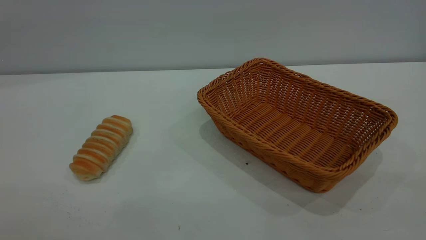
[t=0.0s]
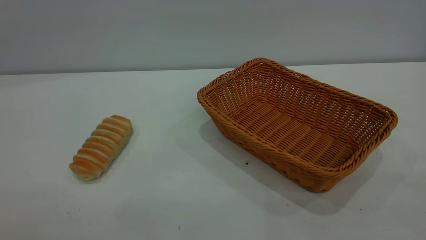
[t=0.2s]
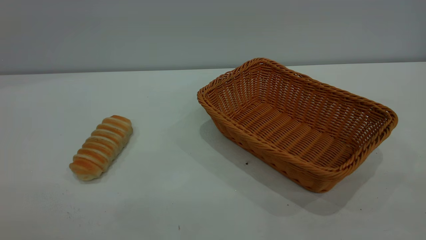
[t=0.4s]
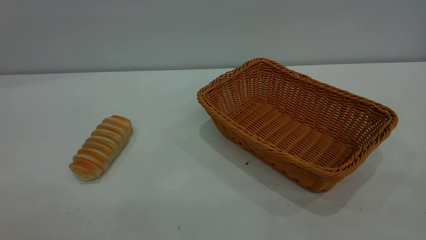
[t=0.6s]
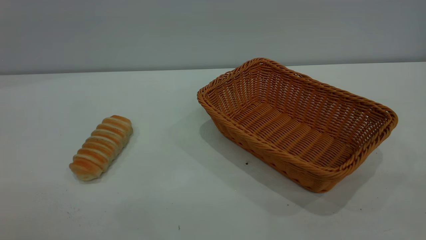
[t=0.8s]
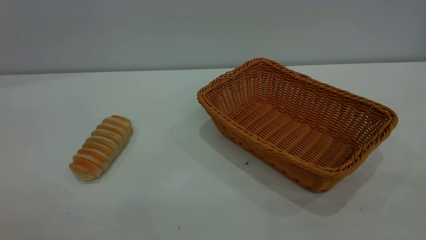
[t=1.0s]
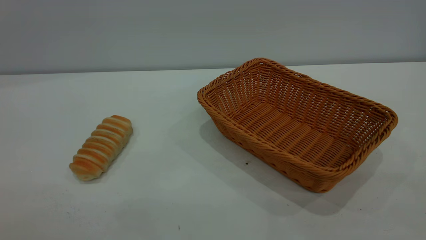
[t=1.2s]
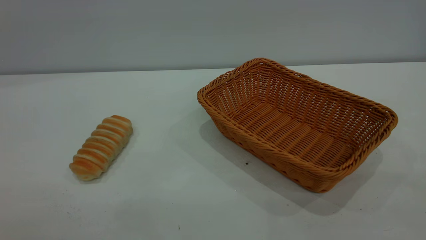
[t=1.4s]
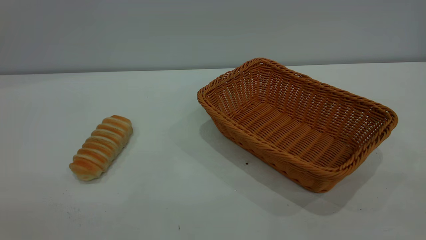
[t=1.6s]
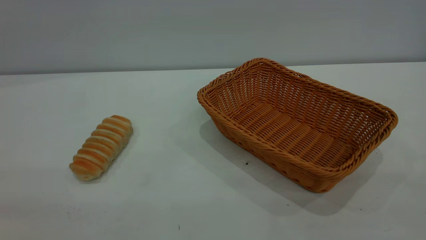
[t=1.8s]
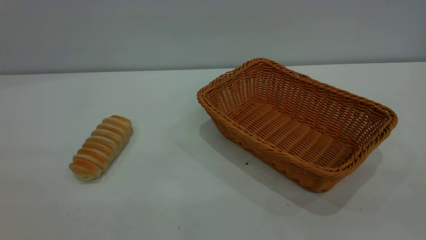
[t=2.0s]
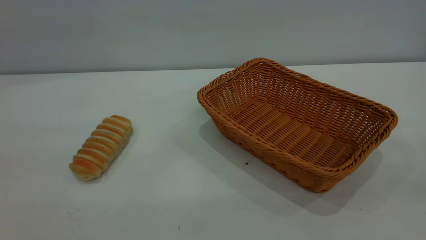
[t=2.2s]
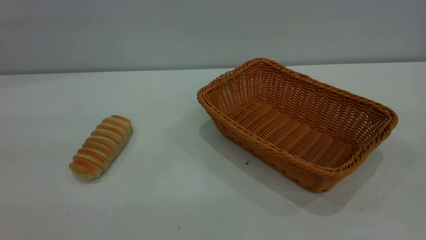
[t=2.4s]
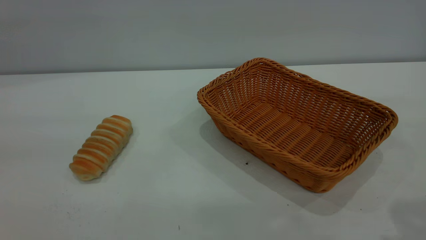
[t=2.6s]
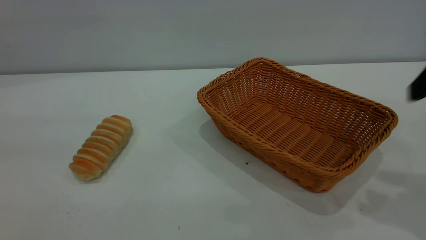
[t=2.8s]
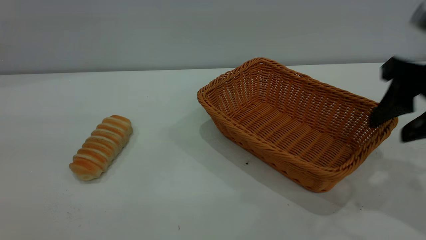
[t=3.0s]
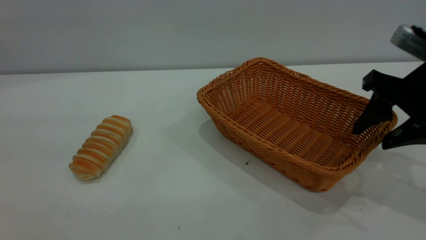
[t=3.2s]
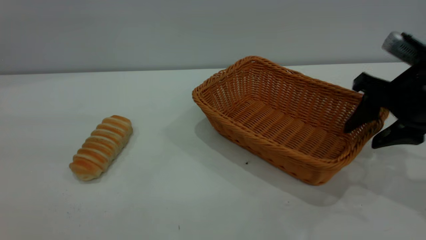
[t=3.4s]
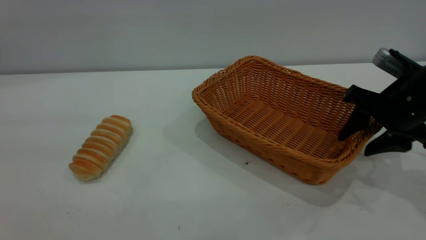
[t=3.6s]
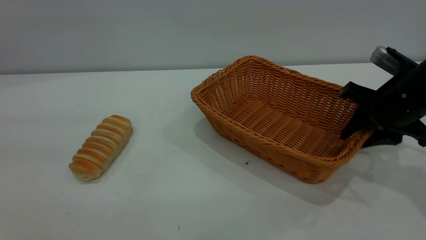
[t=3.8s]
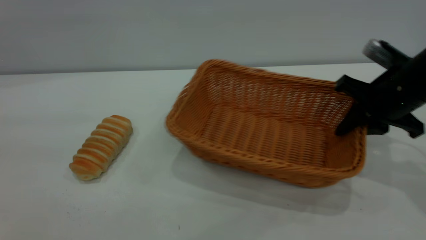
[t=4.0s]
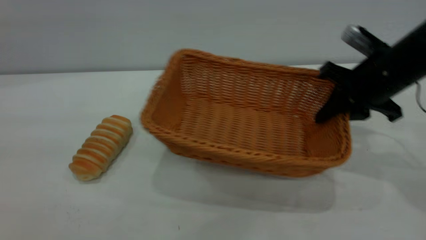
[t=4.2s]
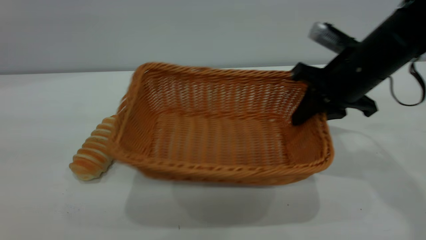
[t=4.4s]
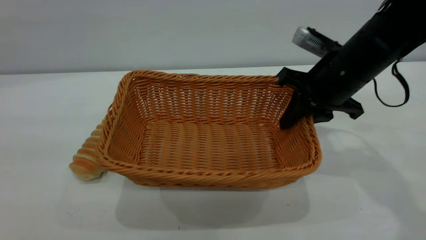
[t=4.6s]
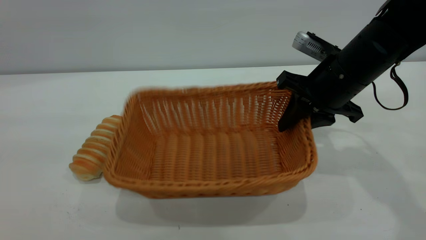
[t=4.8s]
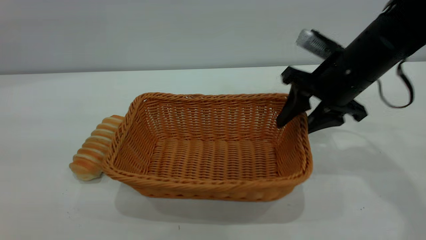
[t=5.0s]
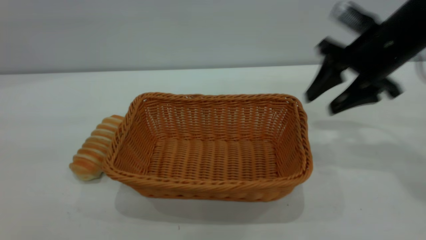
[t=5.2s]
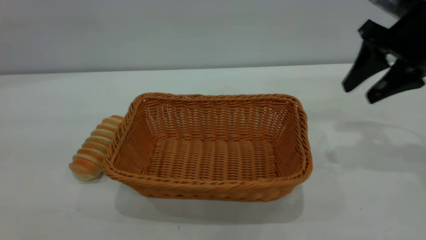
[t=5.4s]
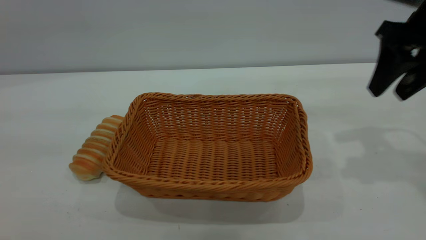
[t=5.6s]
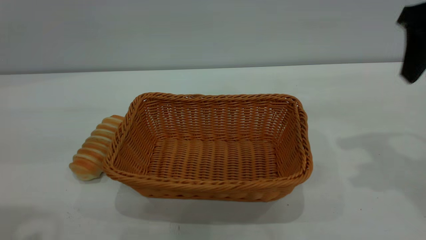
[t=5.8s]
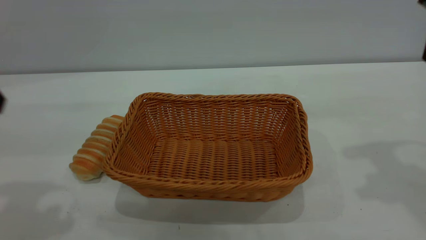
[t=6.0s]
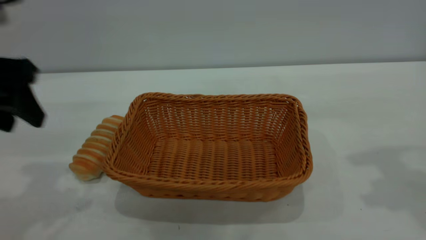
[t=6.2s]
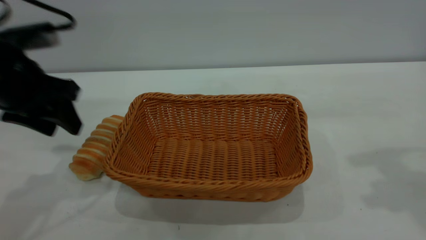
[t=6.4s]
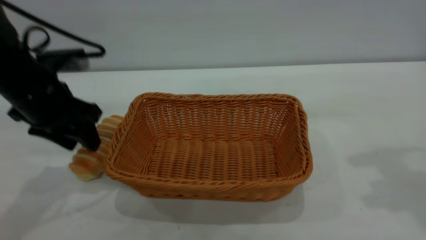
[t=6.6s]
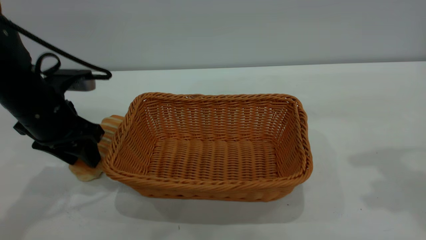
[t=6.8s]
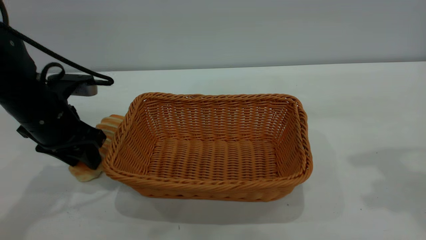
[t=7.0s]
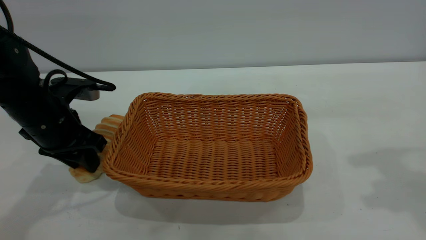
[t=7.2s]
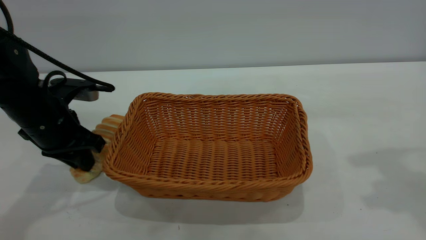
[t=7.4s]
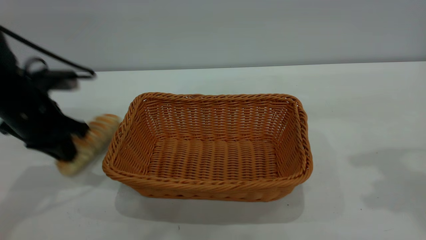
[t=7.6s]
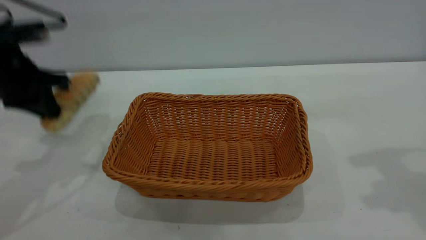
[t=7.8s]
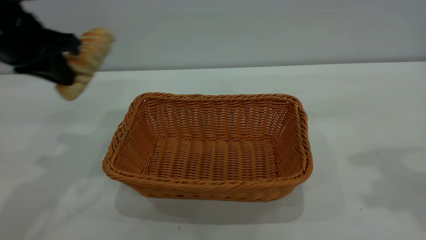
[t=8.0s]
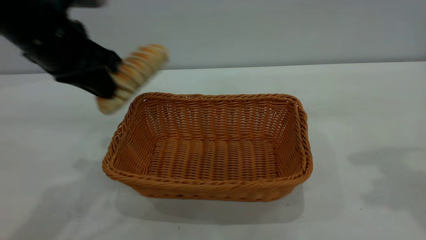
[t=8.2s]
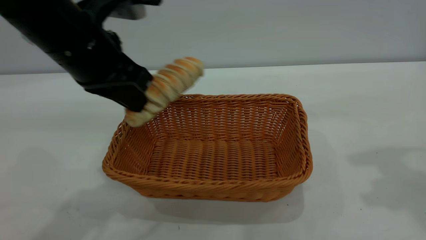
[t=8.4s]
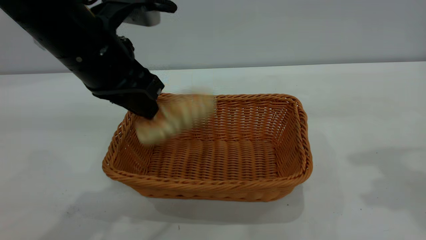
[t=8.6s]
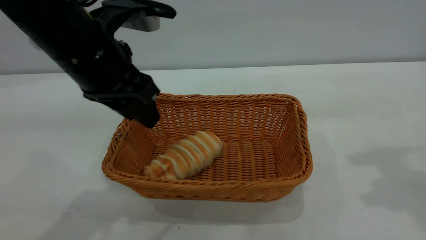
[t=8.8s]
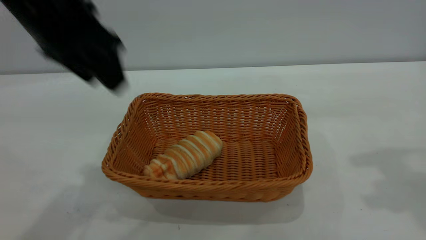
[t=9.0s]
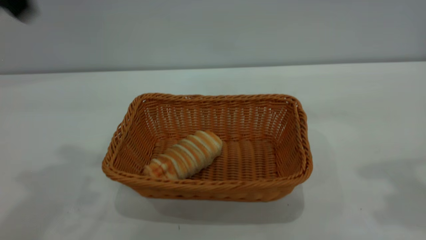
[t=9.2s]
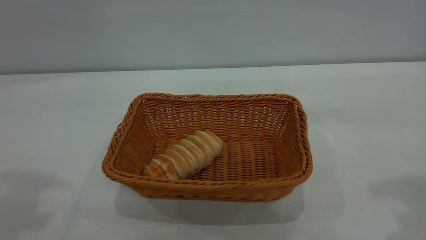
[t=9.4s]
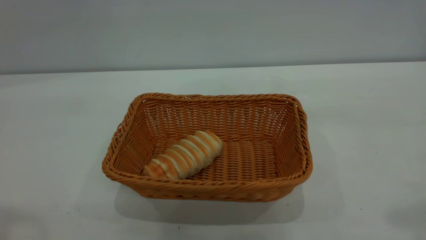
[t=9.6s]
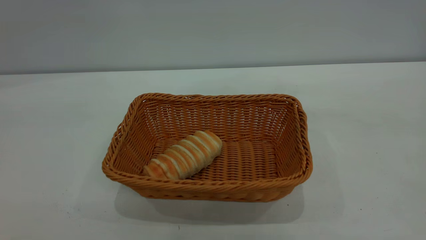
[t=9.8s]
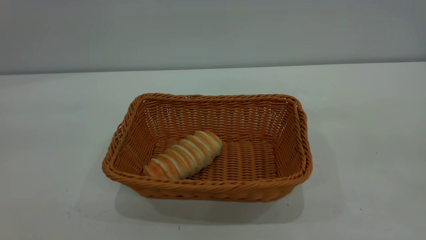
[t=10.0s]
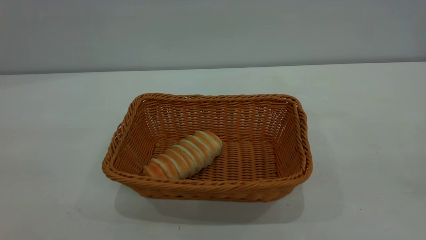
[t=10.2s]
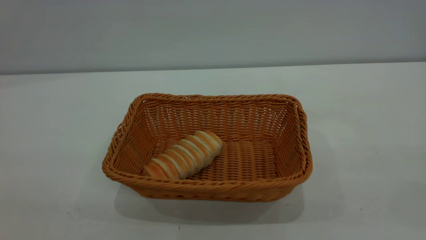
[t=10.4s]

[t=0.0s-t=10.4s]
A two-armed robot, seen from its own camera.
Task of the whole recording: One hand grasps the yellow basket and places it in the middle of the table, while the other hand picks up the long bread and puts it into the yellow basket.
Step, t=0.0s to t=5.0s: Move the basket to the center of view.
Step, t=7.8s to t=8.8s: place the bread into the basket.
t=0.0s to t=1.4s: The two grippers keep their place.
t=1.4s to t=3.0s: The right gripper shifts some 30 cm forward and downward.
t=3.0s to t=4.4s: The right gripper moves forward and to the left, approximately 10 cm, and closes up.
t=4.4s to t=6.0s: The left gripper heads forward and downward, covering some 20 cm, while the right gripper shifts some 20 cm upward, to the right and backward, and opens up.
t=6.0s to t=7.4s: The left gripper goes some 20 cm downward and forward, and closes.
t=7.4s to t=9.0s: The left gripper moves upward and to the right, about 20 cm, and opens.
t=9.0s to t=10.4s: The right gripper shifts approximately 25 cm backward; the left gripper travels backward and to the left by roughly 35 cm.
